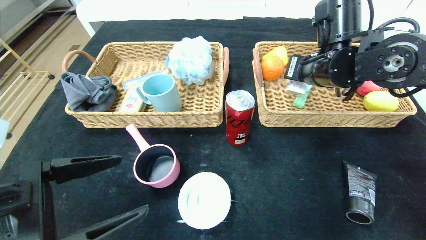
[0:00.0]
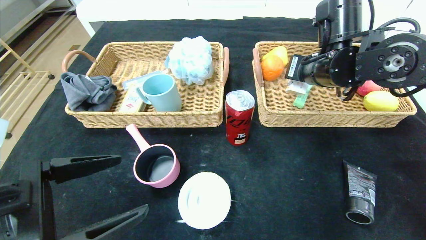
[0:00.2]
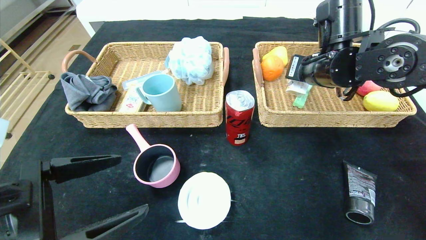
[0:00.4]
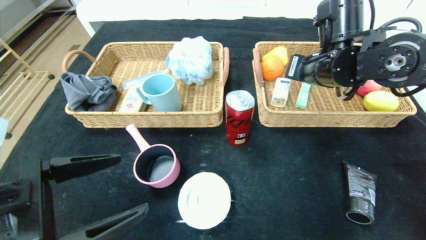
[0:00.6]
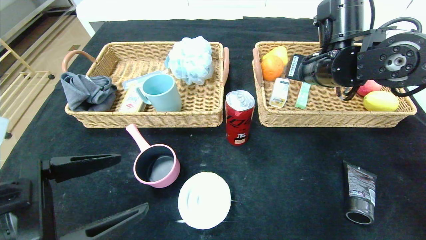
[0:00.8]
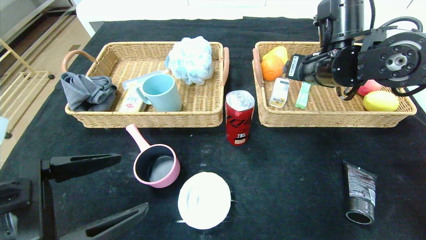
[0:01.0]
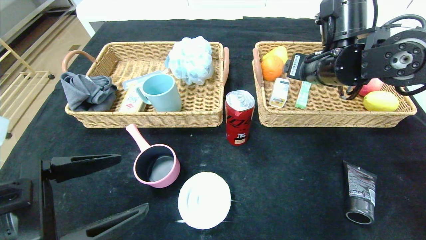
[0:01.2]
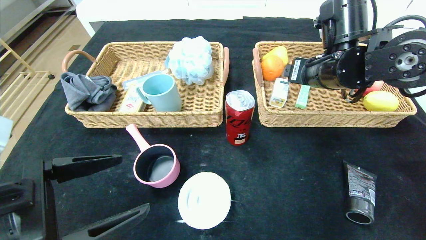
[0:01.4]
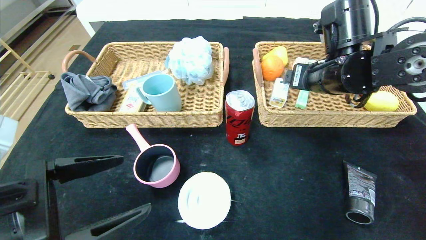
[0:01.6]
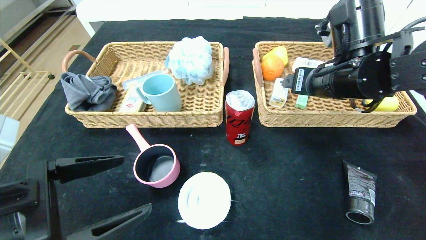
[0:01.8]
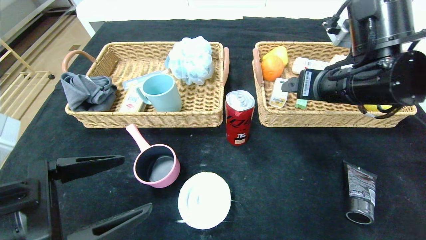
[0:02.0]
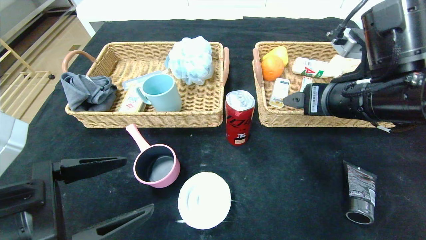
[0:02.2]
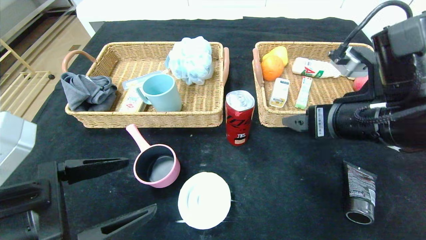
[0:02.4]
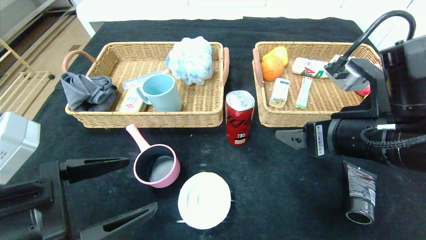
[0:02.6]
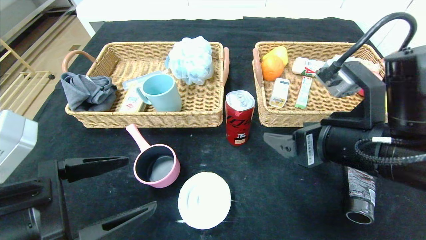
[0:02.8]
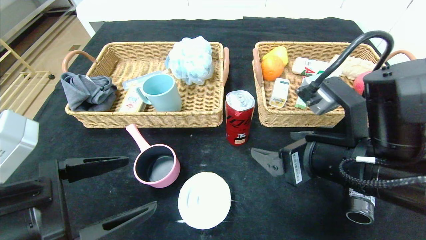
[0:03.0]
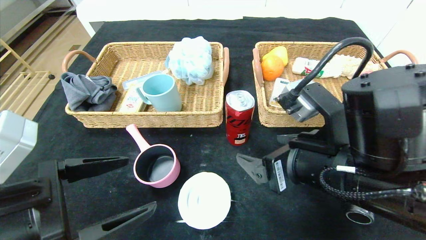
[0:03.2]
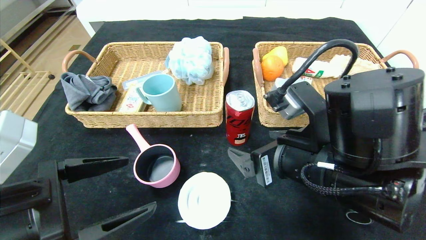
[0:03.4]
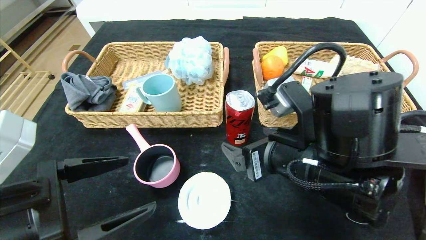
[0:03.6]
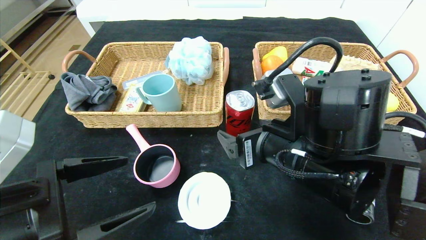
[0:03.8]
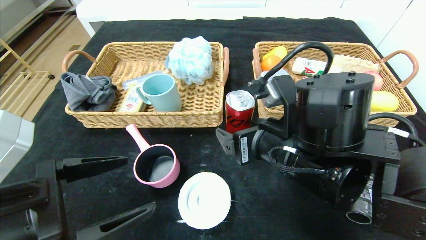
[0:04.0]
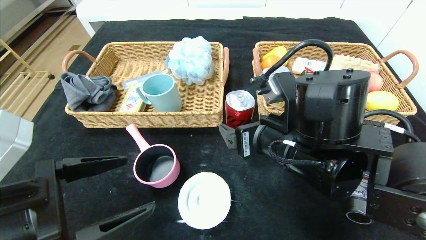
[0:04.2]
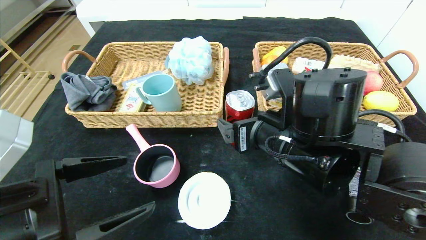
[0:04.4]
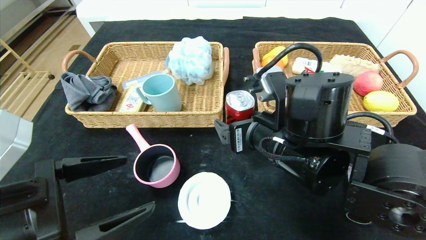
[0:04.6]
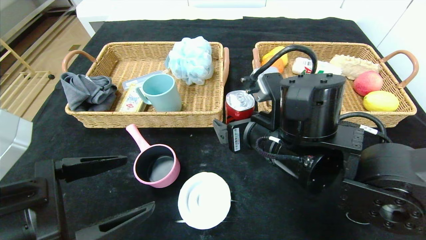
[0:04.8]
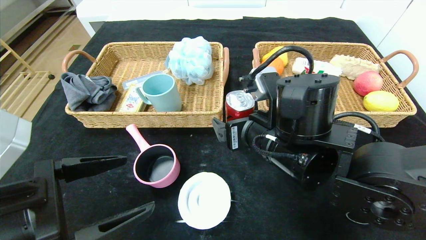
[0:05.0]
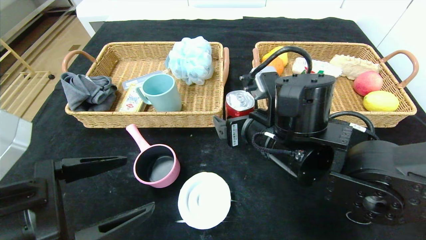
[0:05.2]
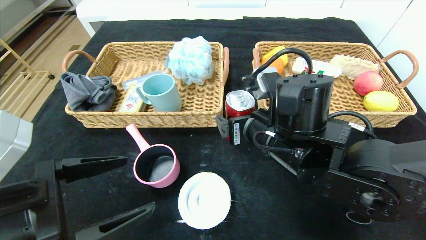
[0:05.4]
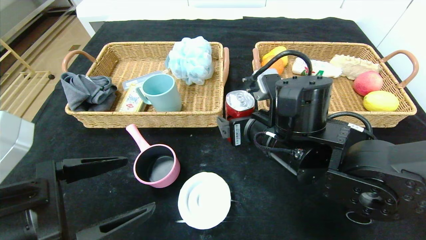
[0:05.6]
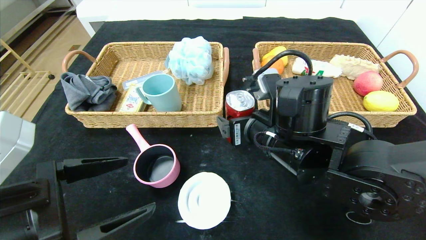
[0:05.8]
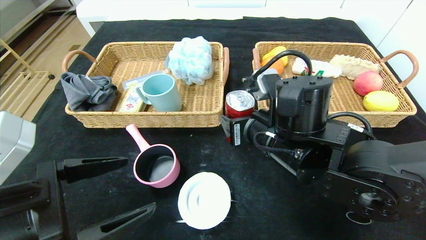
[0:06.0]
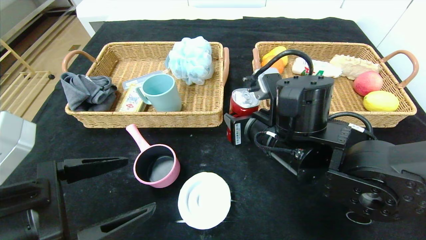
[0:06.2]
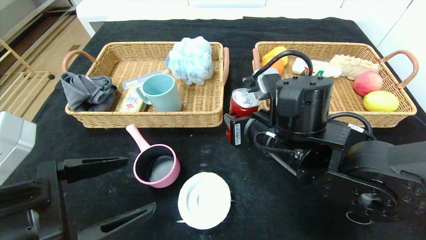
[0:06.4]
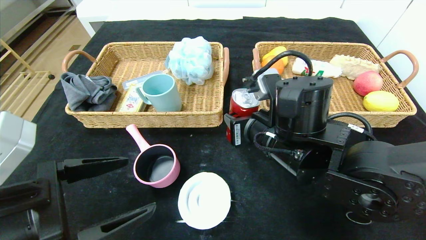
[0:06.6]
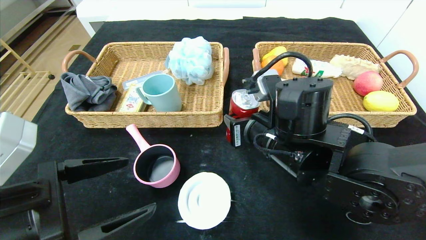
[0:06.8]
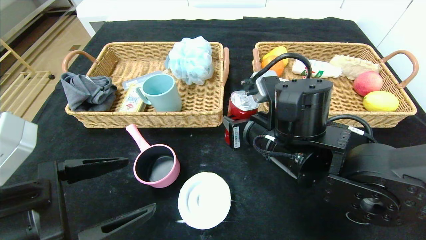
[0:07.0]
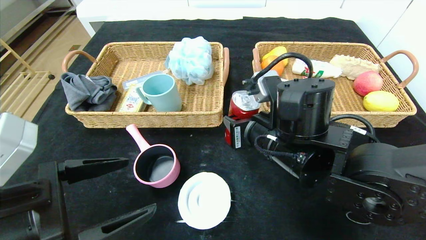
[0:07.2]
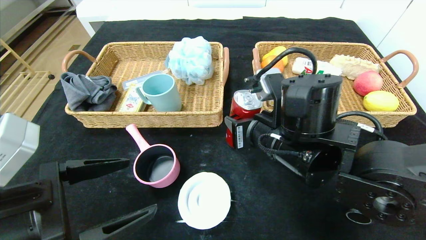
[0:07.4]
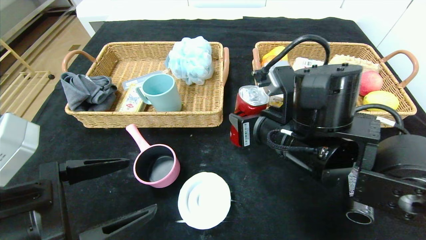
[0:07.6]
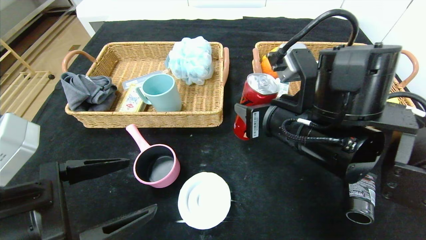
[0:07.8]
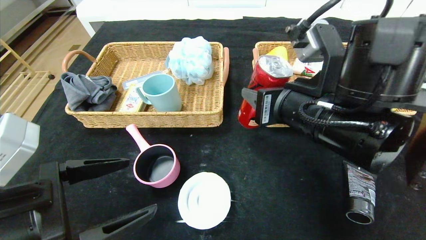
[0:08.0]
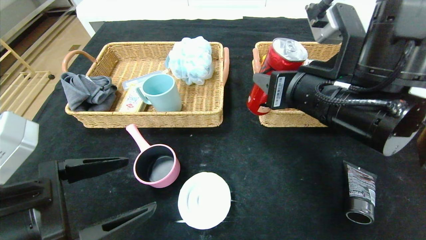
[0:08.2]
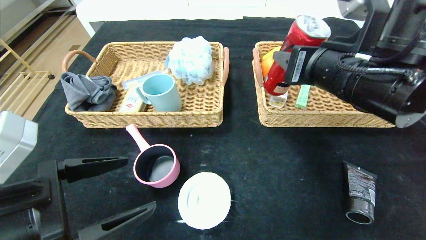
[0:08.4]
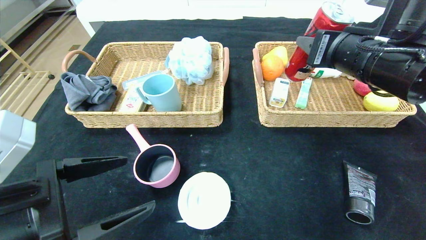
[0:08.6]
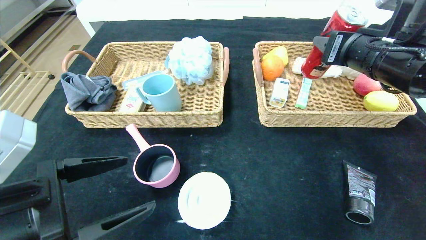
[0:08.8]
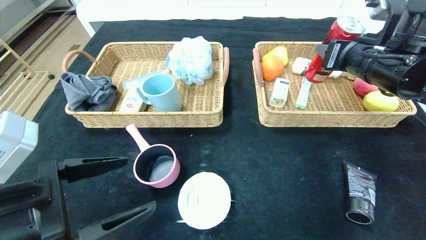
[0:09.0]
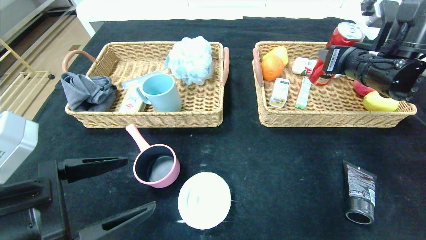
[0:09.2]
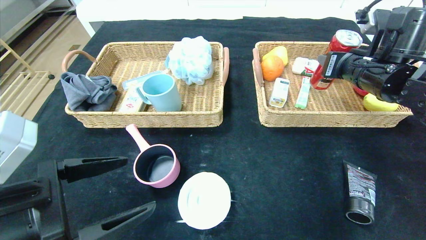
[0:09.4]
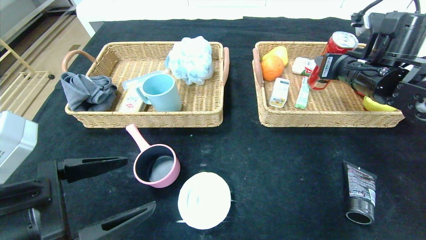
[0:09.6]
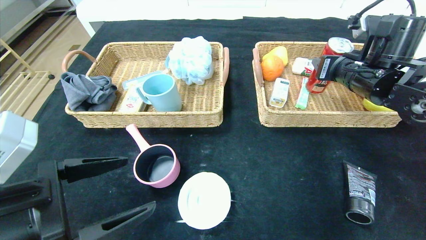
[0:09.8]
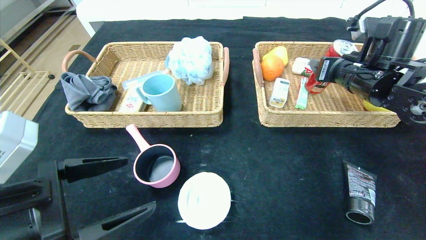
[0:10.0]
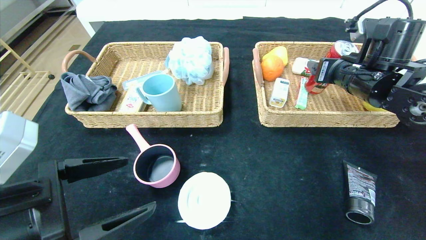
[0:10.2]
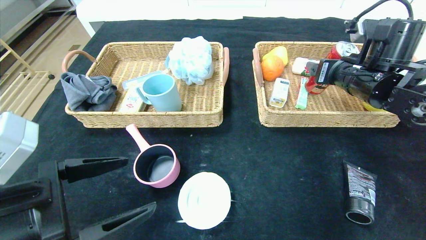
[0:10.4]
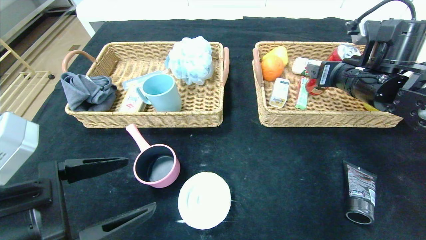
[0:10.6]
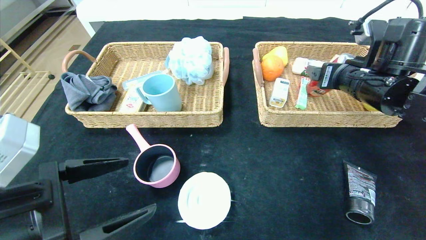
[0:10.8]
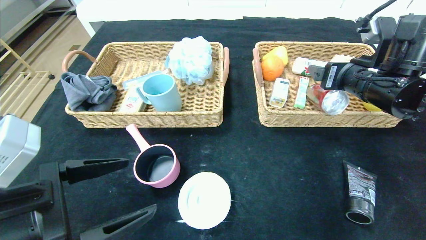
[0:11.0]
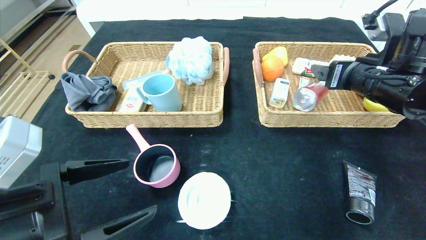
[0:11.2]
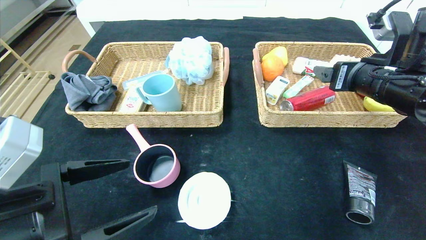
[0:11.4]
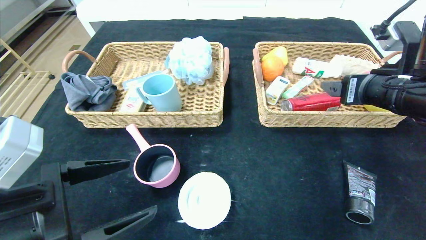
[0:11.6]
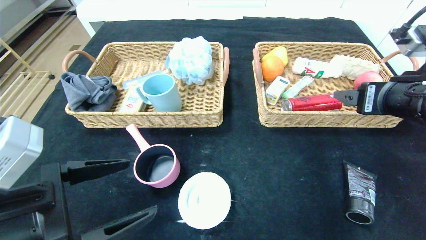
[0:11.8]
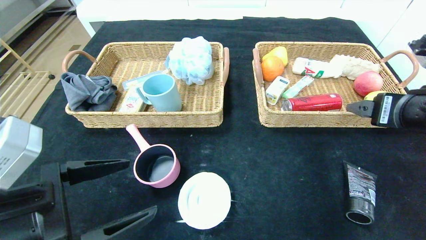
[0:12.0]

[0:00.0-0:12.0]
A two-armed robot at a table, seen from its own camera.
Step, 0:00.8 to 0:10.8: Grasp the canned cola and put it in the right basket.
0:00.0 to 0:01.6: The right gripper opens its fingers.
0:01.6 to 0:03.0: The right gripper travels backward by about 15 cm.
0:03.0 to 0:04.4: The right gripper heads to the left and forward, covering roughly 10 cm.
0:04.4 to 0:07.6: The grippers stay close to where they were, moving slightly.
0:07.6 to 0:09.0: The right gripper is displaced to the right, forward and upward by roughly 20 cm.
0:09.0 to 0:10.4: The right gripper opens.
0:10.4 to 0:12.0: The right gripper is displaced backward by approximately 15 cm.

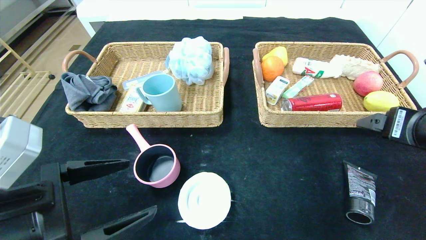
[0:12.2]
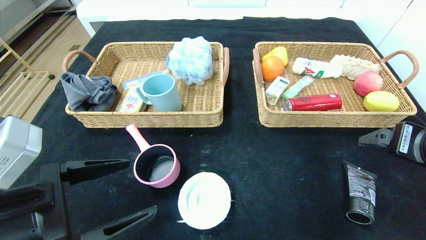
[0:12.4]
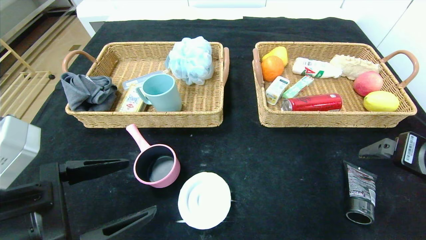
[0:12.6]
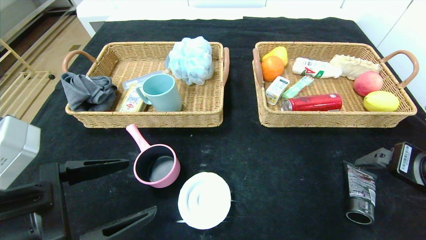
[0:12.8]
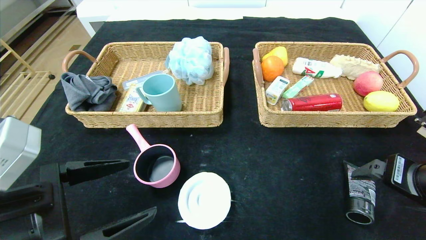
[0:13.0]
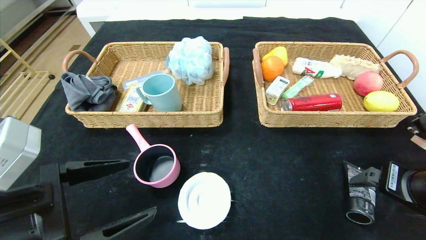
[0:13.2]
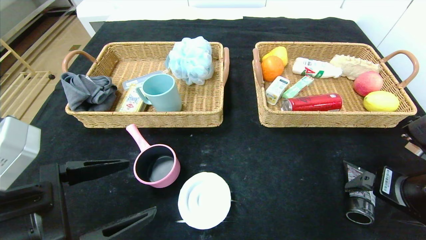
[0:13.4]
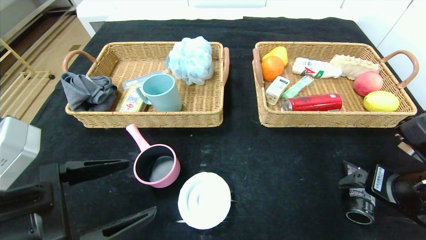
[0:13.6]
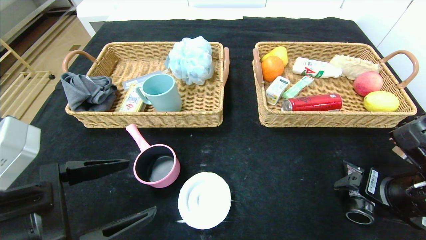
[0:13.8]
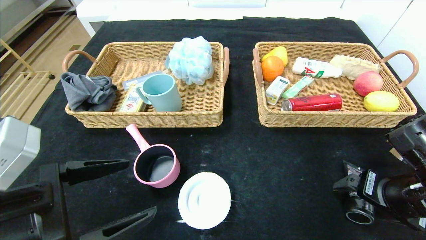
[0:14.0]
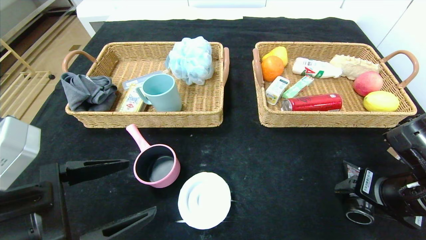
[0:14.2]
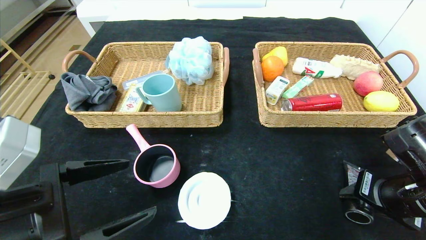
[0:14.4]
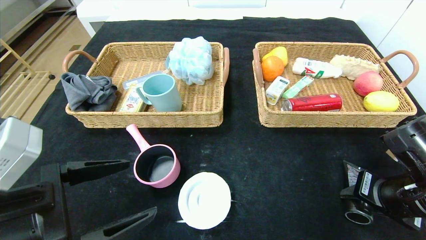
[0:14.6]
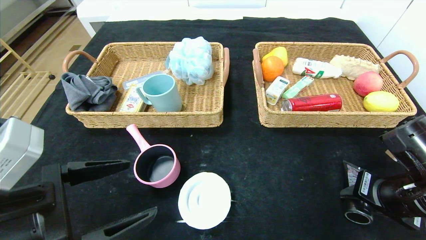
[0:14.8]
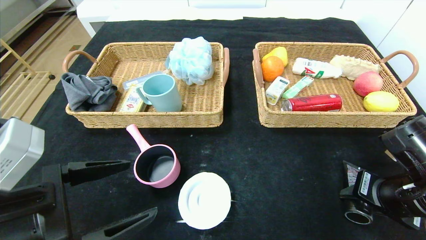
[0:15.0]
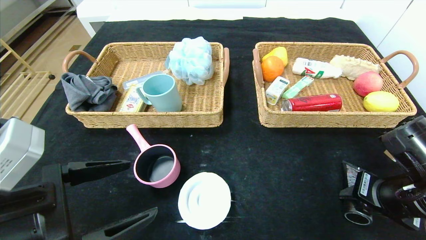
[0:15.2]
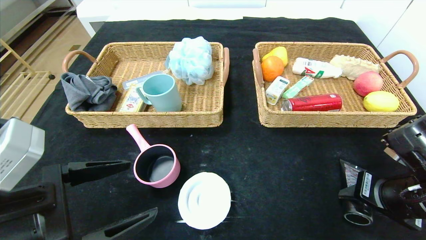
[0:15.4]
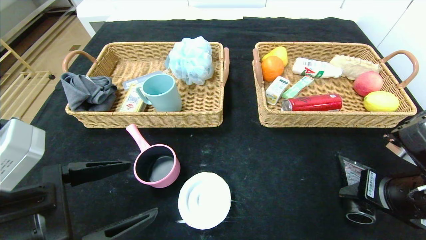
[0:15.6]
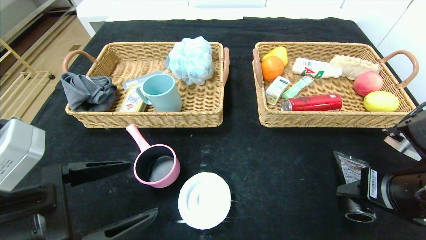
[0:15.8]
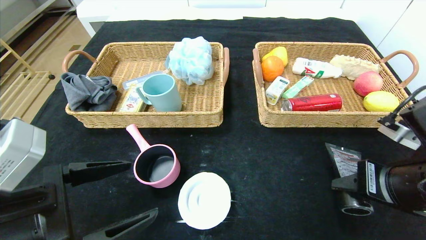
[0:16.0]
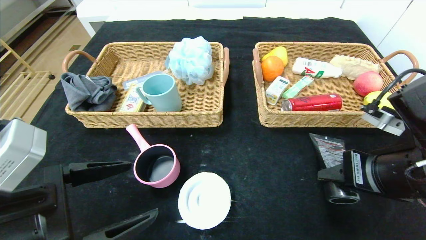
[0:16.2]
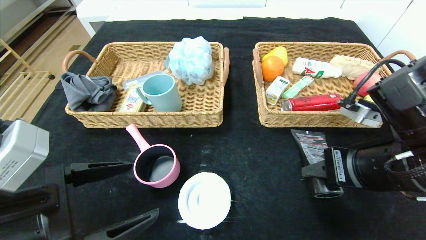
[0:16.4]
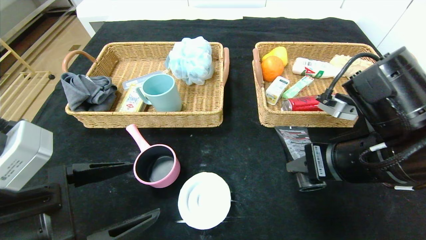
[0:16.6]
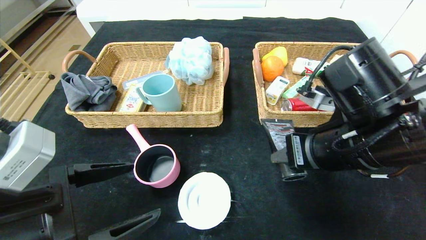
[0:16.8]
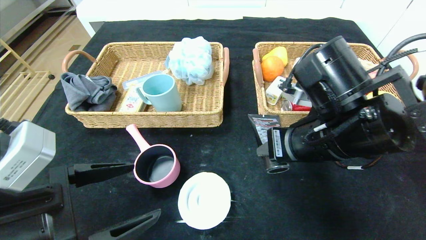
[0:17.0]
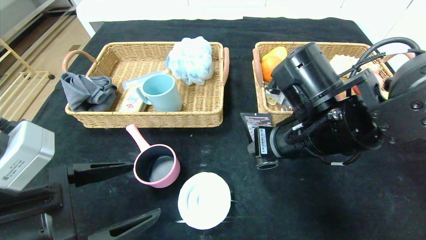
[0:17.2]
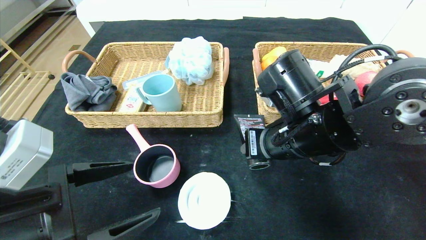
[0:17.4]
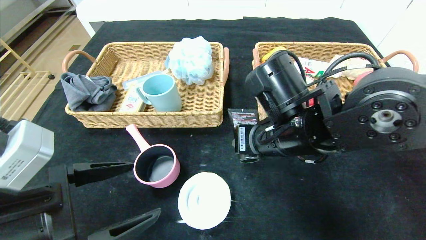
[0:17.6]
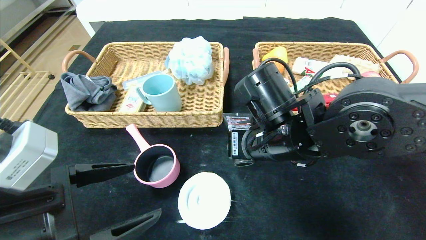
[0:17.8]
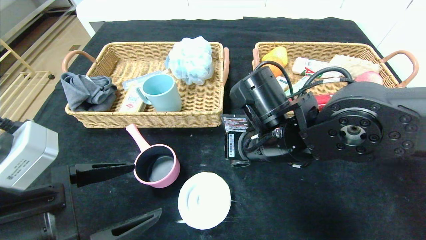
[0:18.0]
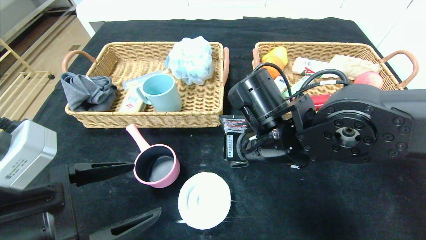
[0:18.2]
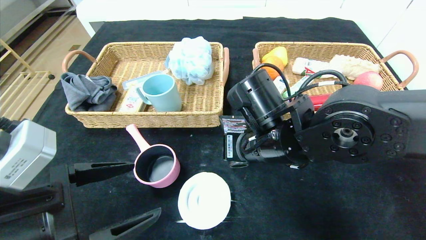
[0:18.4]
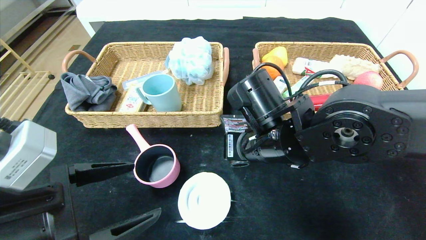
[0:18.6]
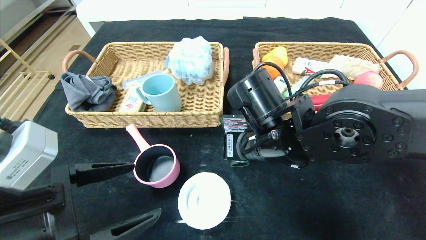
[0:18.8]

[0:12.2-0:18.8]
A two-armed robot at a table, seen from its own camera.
0:12.2 to 0:13.8: The right gripper moves downward, approximately 10 cm.
0:13.8 to 0:15.4: The right gripper closes.
0:15.4 to 0:17.2: The right gripper heads to the left, covering about 15 cm.
0:17.2 to 0:18.8: The right gripper moves approximately 5 cm.
